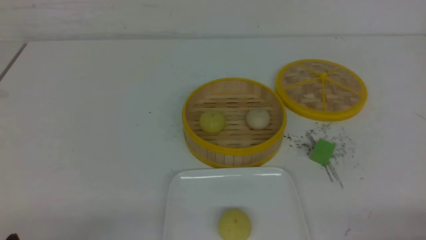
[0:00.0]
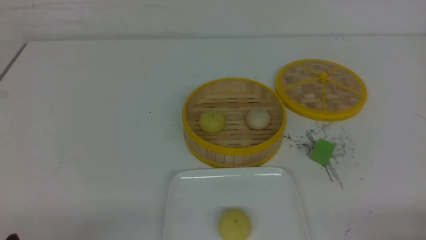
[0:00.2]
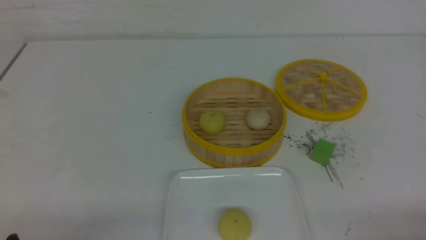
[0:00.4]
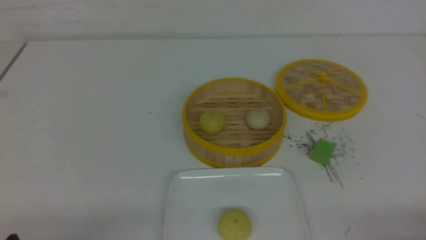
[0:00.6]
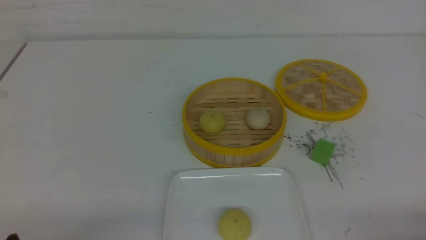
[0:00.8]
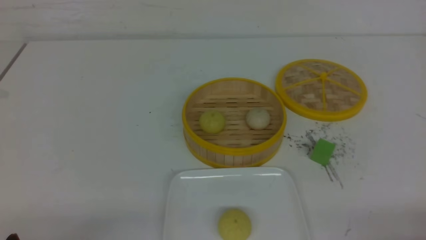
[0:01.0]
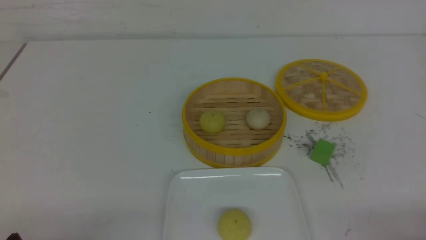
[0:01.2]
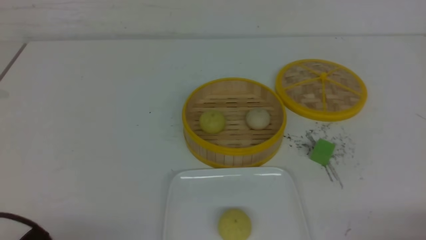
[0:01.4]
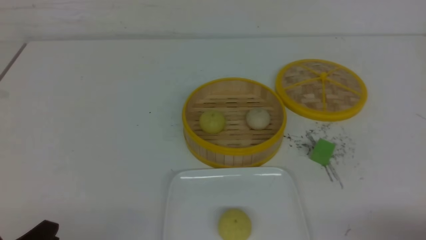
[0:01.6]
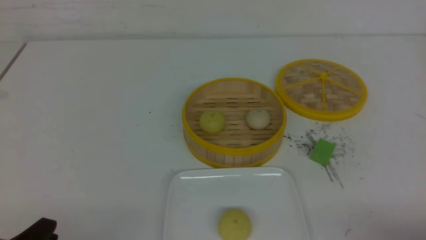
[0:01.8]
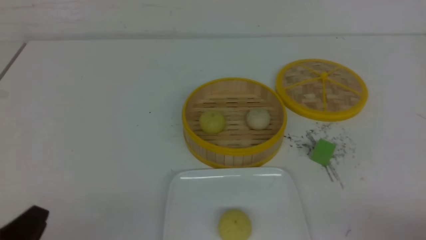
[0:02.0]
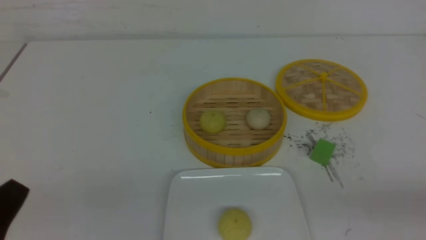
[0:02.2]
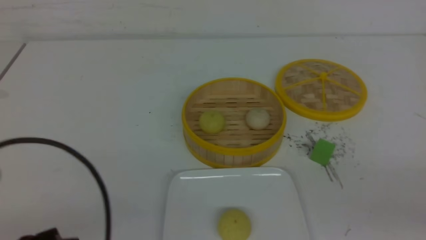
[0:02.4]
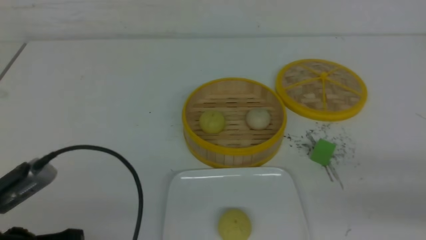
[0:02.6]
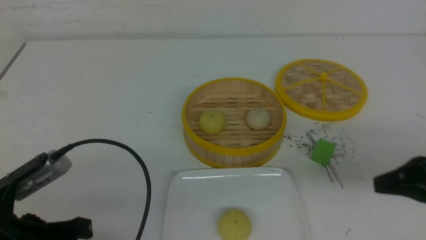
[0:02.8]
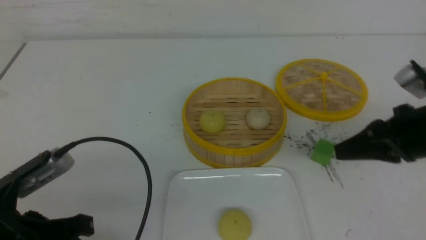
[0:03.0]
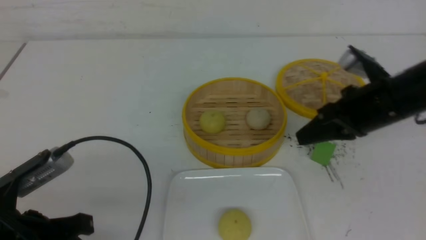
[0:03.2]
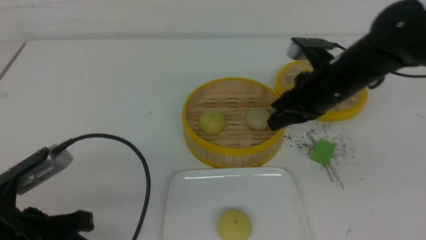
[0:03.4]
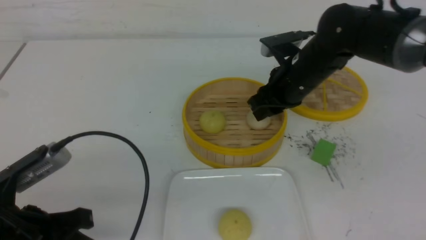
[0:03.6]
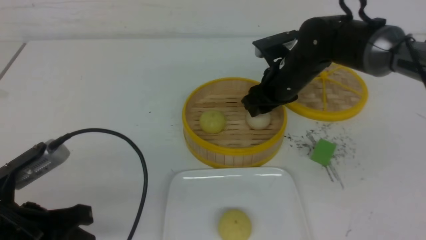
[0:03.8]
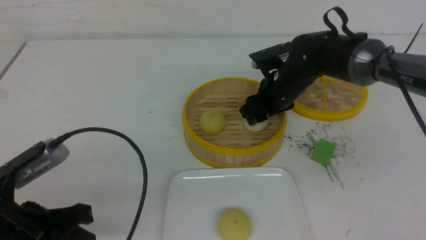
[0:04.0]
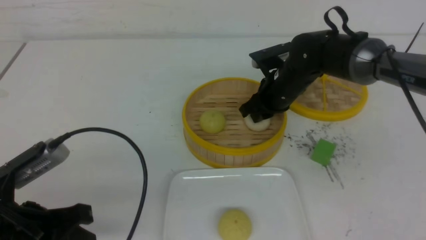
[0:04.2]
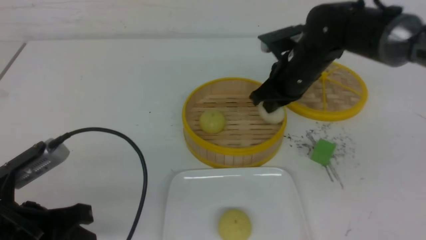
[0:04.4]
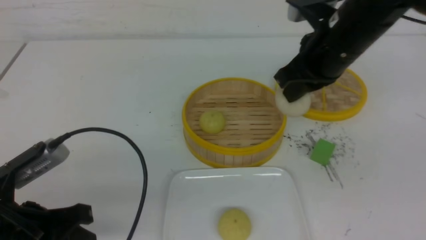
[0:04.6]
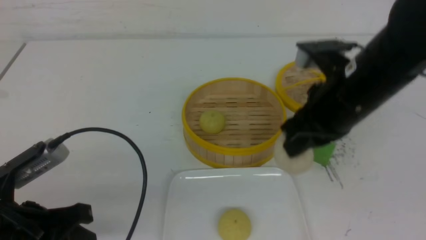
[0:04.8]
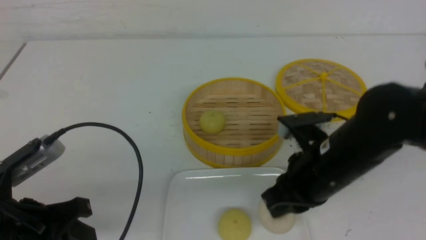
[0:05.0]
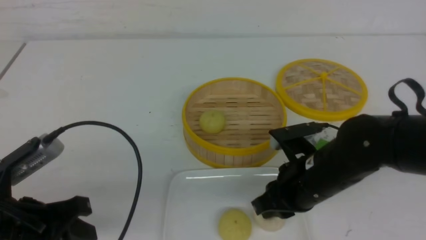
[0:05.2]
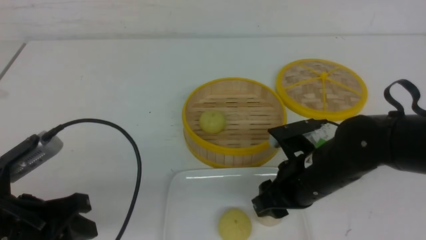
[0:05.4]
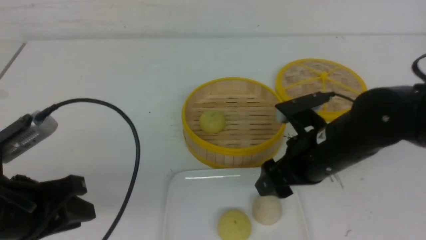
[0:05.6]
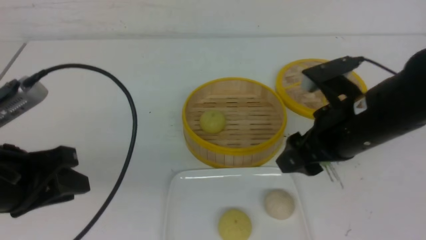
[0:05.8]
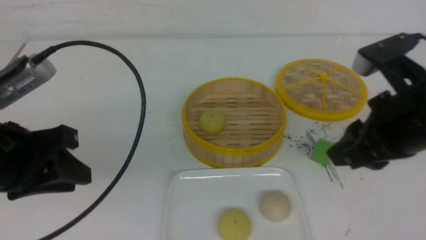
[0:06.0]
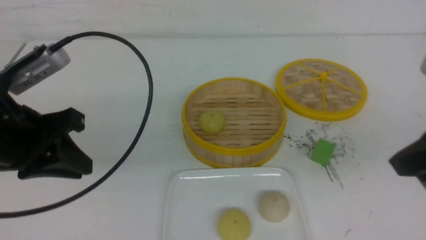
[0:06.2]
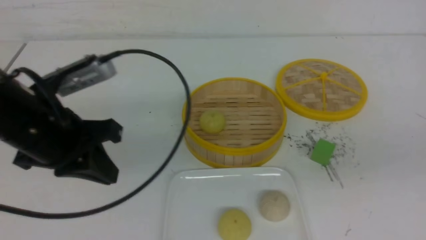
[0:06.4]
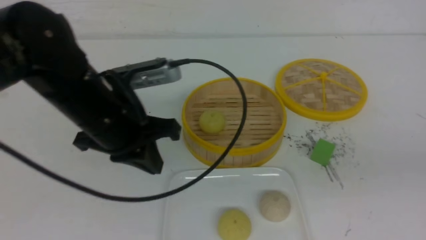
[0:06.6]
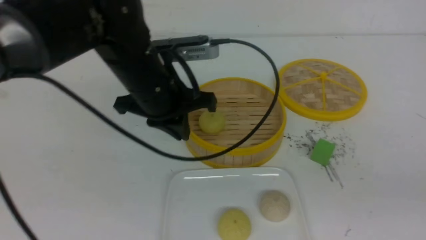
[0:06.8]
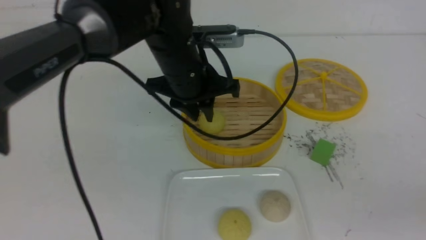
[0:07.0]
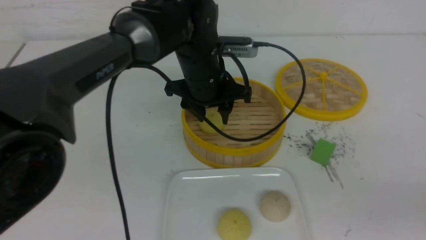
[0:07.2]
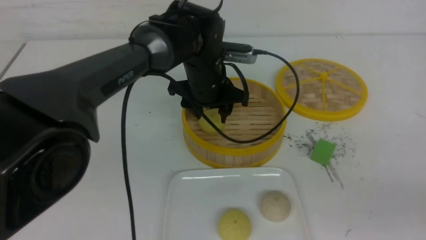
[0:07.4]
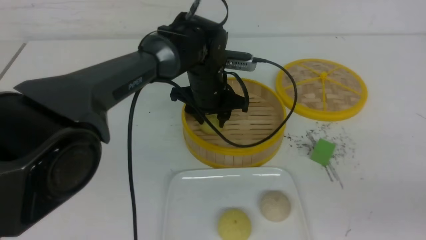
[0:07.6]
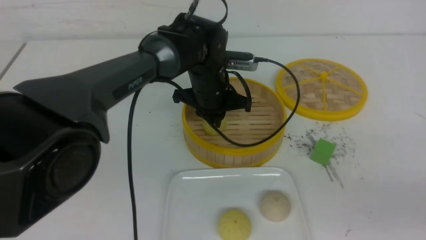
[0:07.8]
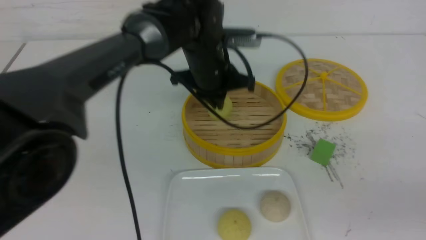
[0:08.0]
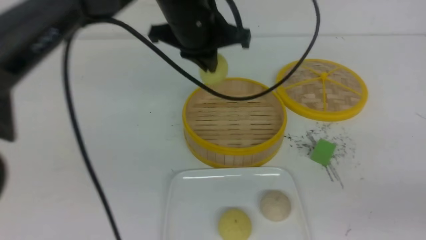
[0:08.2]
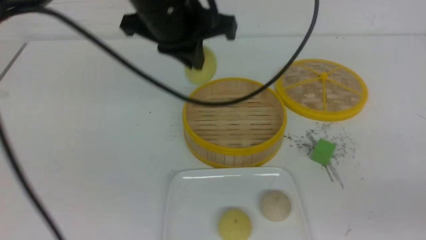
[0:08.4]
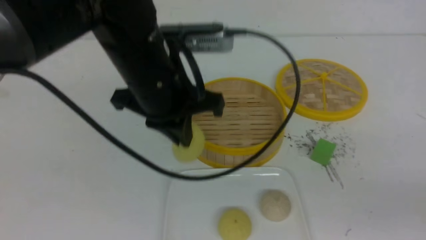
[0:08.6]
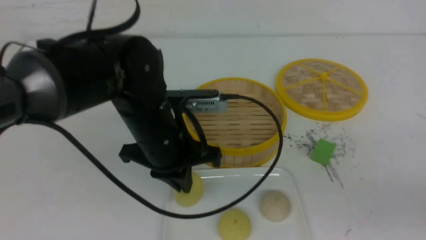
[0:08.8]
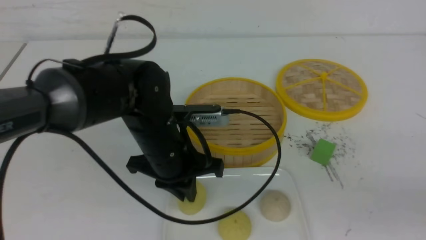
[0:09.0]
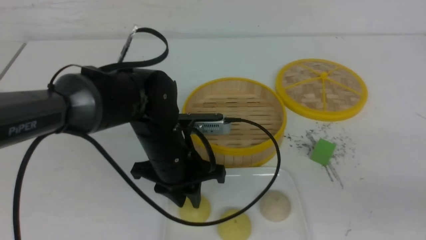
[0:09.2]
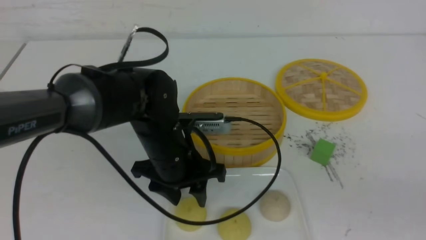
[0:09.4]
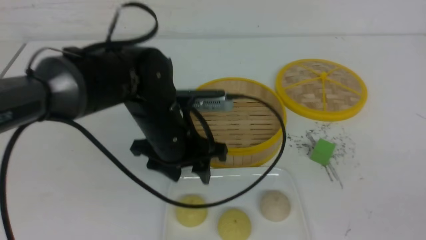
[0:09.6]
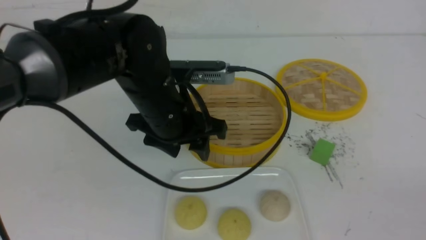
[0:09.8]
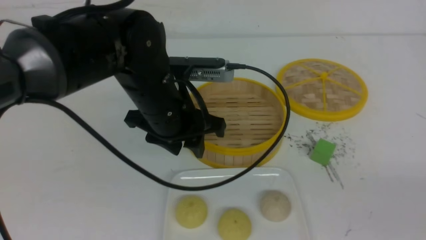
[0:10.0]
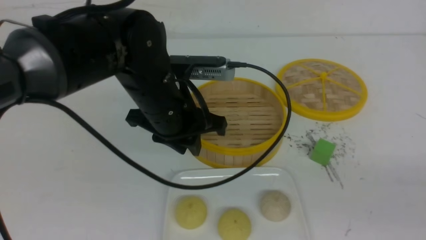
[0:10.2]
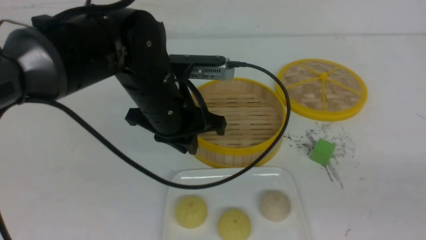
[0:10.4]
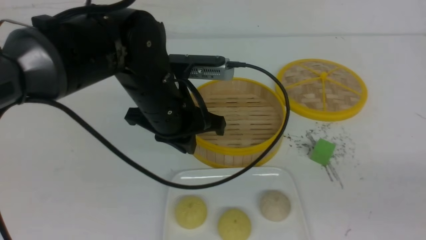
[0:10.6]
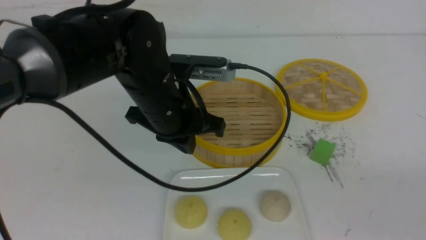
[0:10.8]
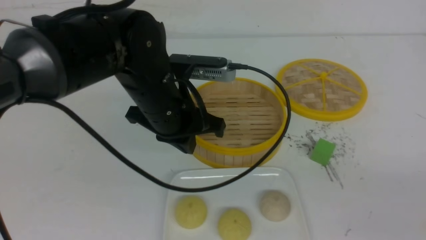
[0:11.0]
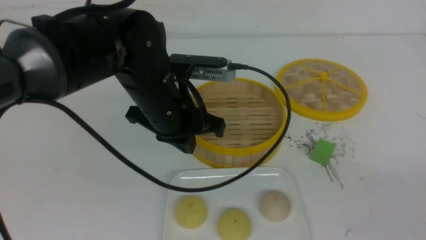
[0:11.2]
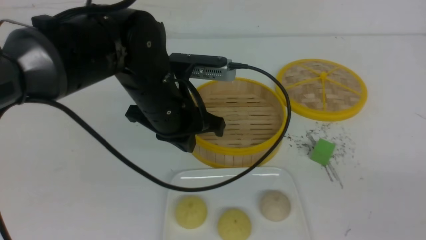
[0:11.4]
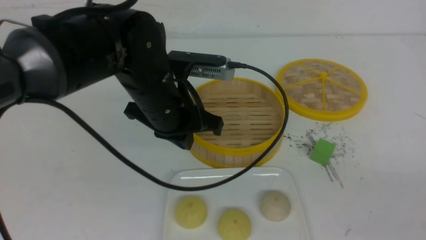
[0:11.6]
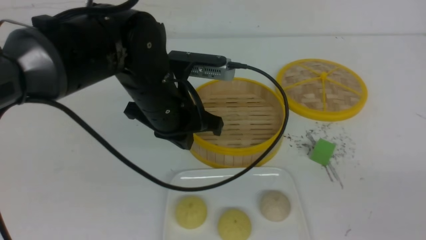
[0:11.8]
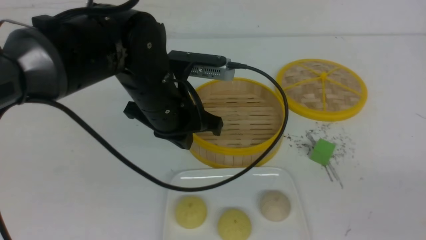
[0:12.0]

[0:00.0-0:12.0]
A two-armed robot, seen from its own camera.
Step, 0:00.0 to 0:03.8: use the right arm to grab the steamed stuffed bun that is closest to it.
Step, 0:04.0 to 0:05.4: use the right arm to put the steamed stuffed bun into the plate.
Step, 0:05.6 to 0:07.8: use the left arm to grab the steamed stuffed bun that is closest to it.
Step, 0:08.0 to 0:09.6: use the left arm to put the steamed stuffed bun into the plate.
0:01.6 to 0:03.0: The right gripper heads forward and upward, covering roughly 20 cm, and closes its fingers; the left gripper is displaced forward and upward by about 10 cm, and closes its fingers.
0:03.0 to 0:04.4: The right gripper heads forward and to the left, covering some 20 cm, and opens, then closes again.
0:04.4 to 0:06.0: The right gripper travels backward by some 20 cm, and opens. The left gripper moves upward, some 10 cm.
0:06.0 to 0:07.6: The left gripper shifts about 30 cm to the right and forward, and closes and opens again. The right gripper moves backward and to the right, approximately 15 cm, and closes up.
0:07.6 to 0:09.0: The left gripper travels backward and to the left by some 15 cm, moves approximately 15 cm upward and comes back, and closes.
0:09.0 to 0:10.4: The left gripper travels upward by approximately 5 cm, and opens, then closes once more.
0:10.4 to 0:12.0: The grippers stay close to where they were, moving slightly.

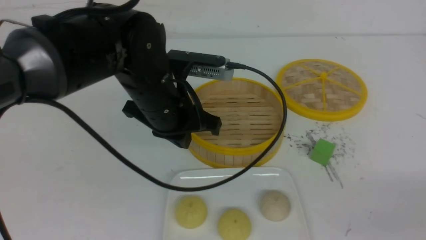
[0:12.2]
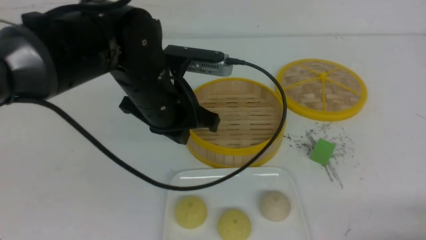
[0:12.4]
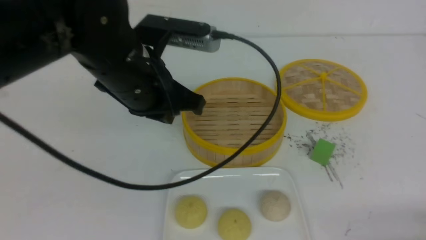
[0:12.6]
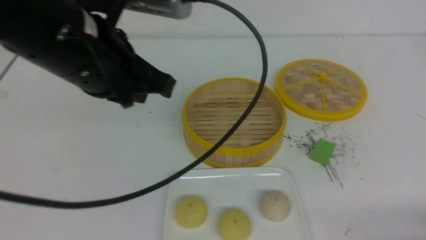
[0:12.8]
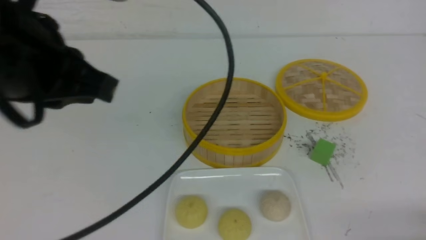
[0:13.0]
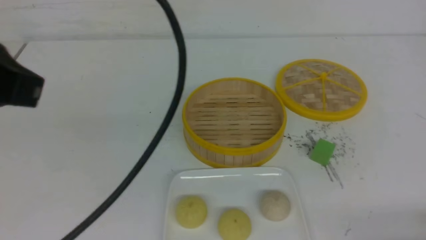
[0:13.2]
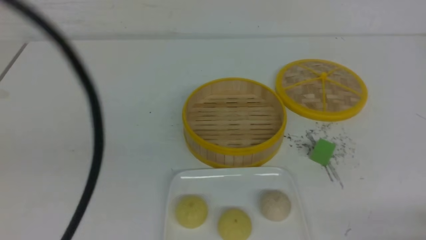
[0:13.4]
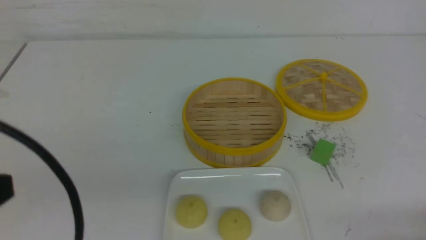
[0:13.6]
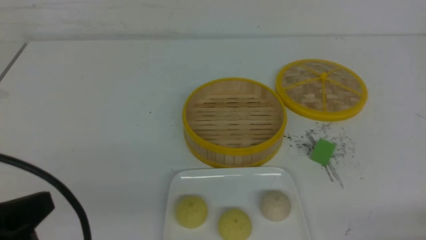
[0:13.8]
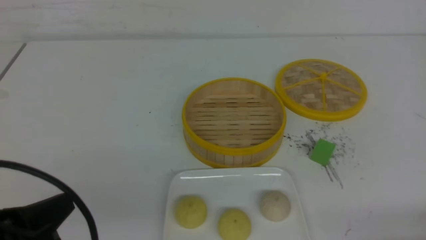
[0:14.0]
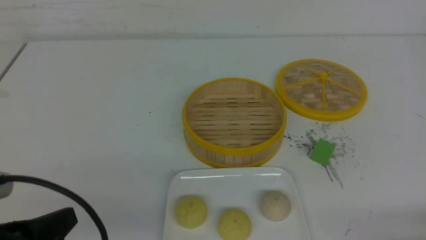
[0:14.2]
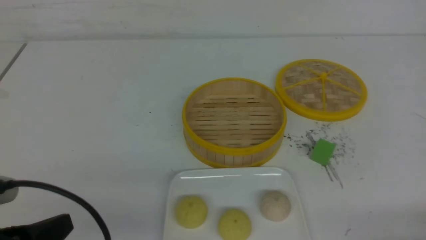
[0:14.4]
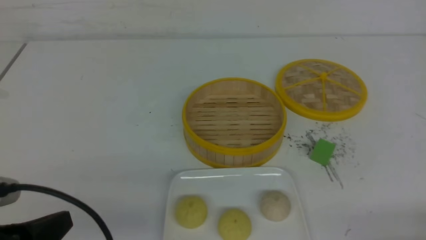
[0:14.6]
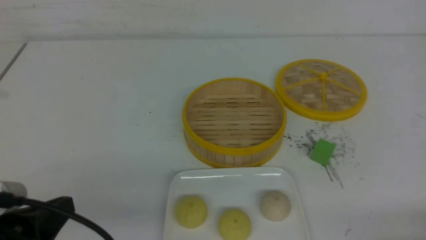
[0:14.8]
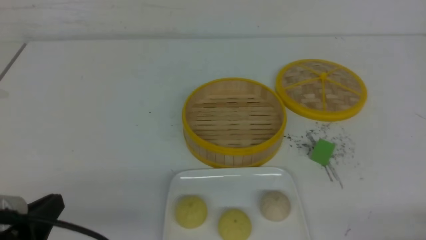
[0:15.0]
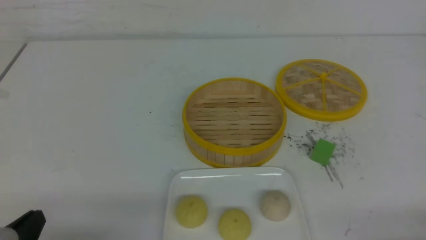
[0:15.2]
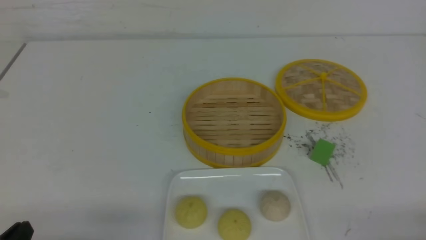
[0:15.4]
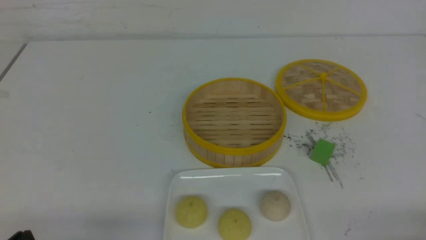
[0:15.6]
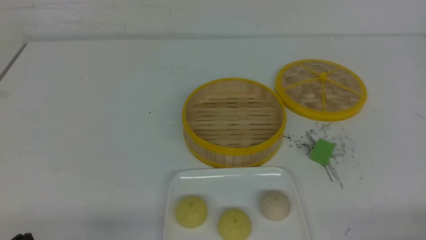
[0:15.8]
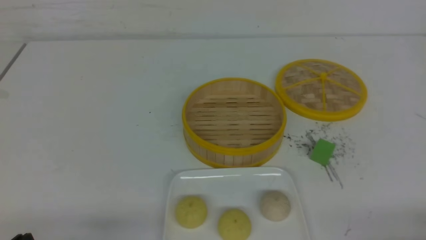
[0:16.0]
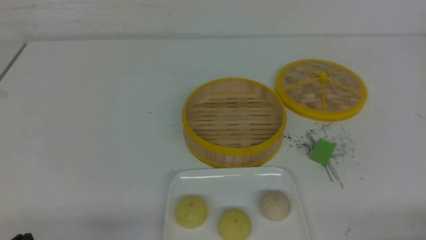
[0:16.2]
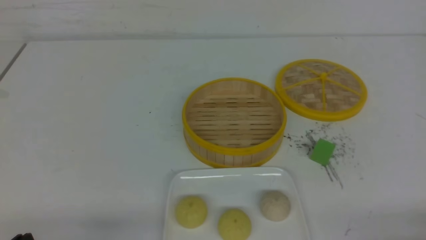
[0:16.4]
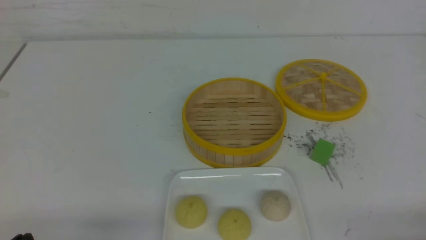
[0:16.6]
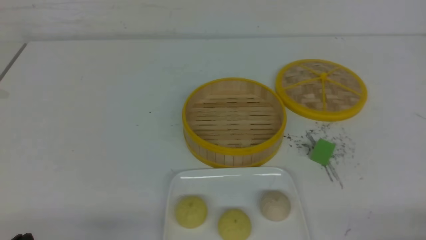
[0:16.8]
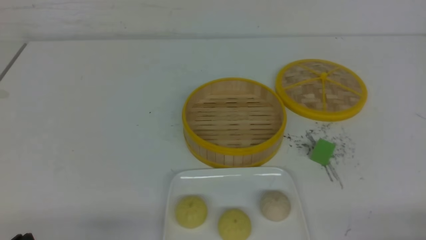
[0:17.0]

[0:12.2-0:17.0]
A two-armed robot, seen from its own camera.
0:12.2 to 0:13.8: The right gripper travels downward by approximately 5 cm; the left gripper heads backward and to the left, covering some 25 cm.
0:13.8 to 0:15.4: The left gripper heads downward, covering some 15 cm.
0:15.4 to 0:17.0: Both grippers stay put.
